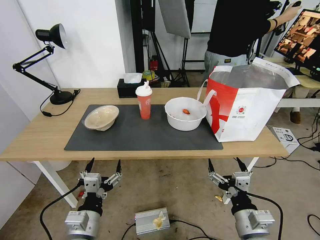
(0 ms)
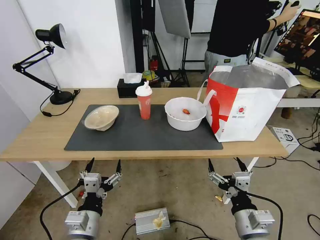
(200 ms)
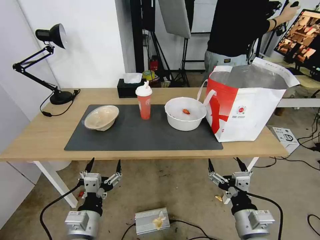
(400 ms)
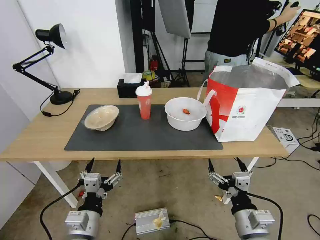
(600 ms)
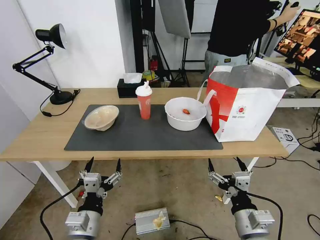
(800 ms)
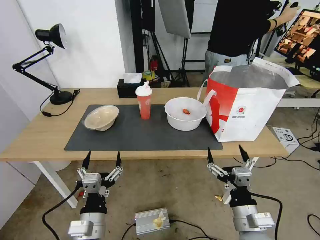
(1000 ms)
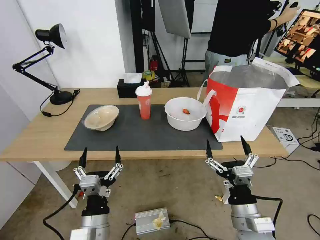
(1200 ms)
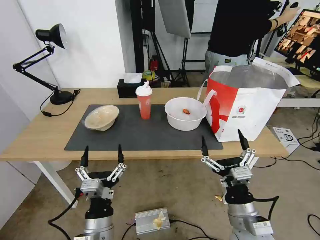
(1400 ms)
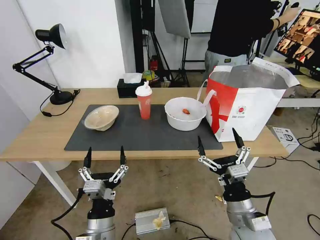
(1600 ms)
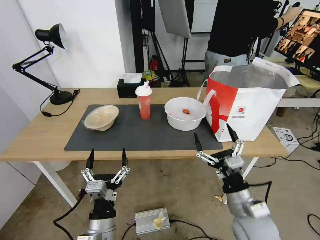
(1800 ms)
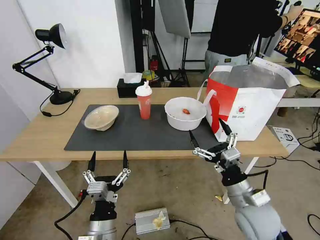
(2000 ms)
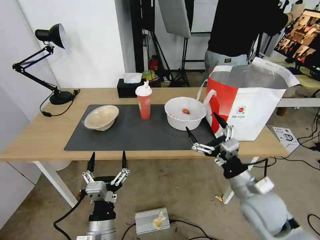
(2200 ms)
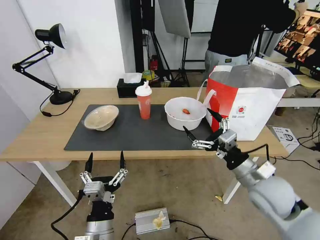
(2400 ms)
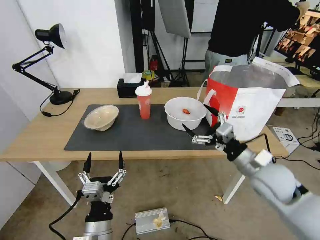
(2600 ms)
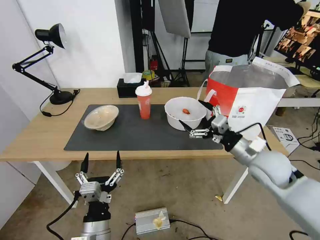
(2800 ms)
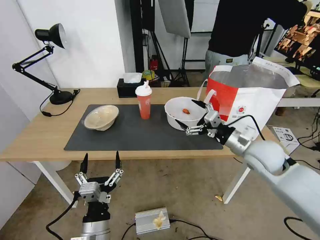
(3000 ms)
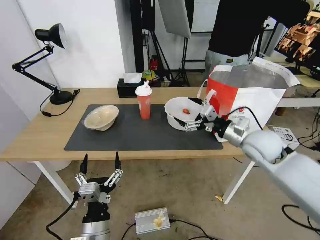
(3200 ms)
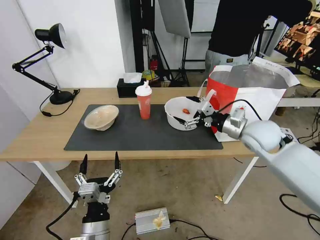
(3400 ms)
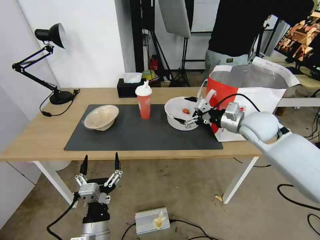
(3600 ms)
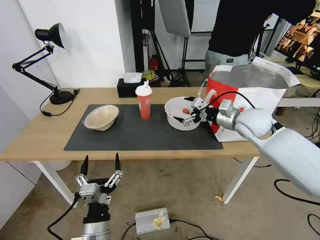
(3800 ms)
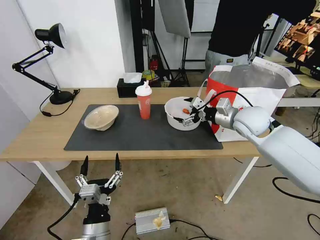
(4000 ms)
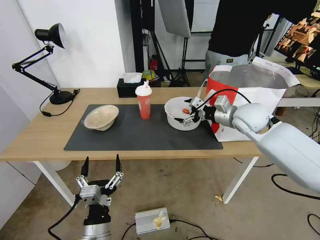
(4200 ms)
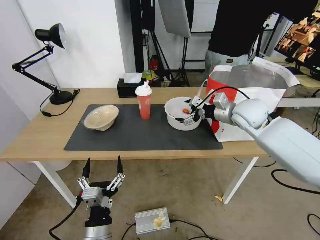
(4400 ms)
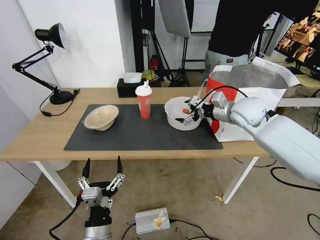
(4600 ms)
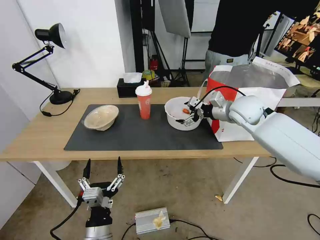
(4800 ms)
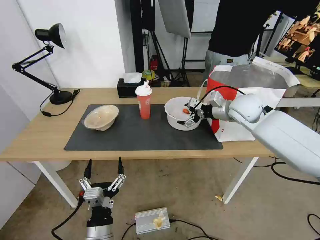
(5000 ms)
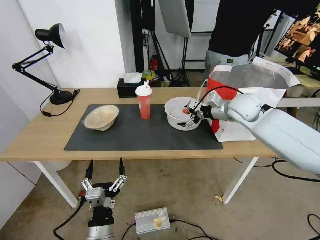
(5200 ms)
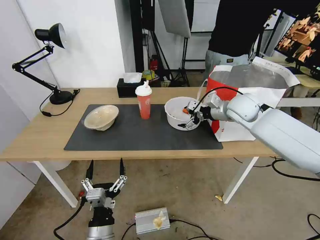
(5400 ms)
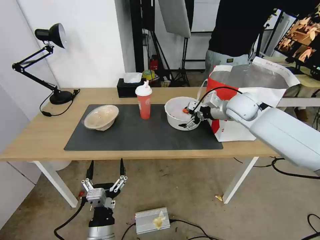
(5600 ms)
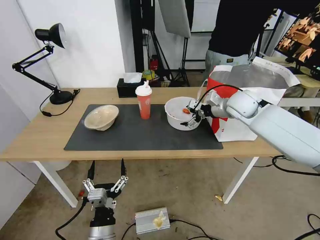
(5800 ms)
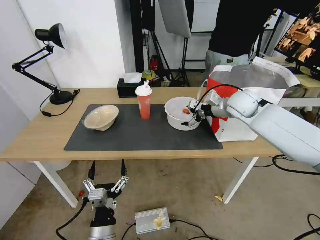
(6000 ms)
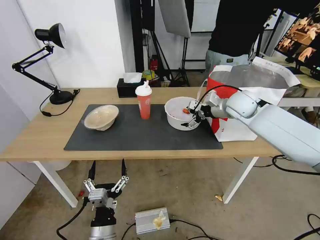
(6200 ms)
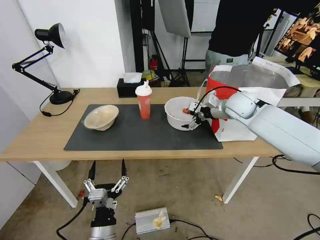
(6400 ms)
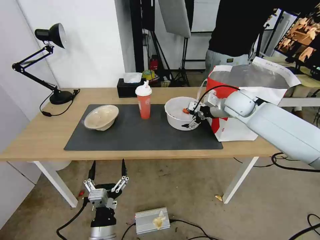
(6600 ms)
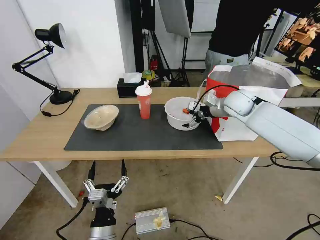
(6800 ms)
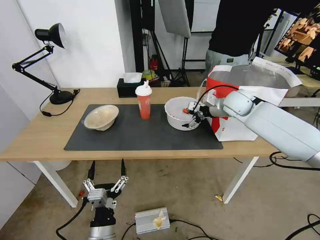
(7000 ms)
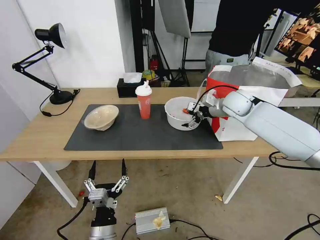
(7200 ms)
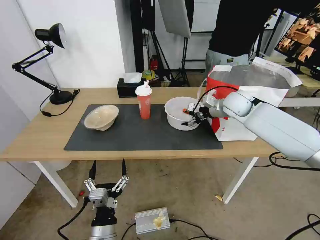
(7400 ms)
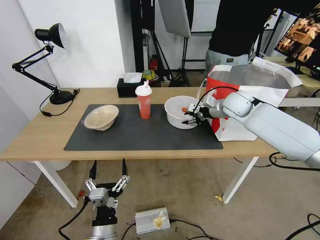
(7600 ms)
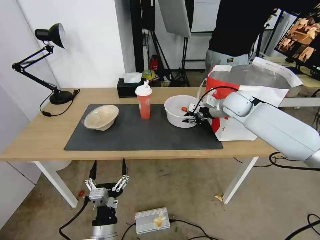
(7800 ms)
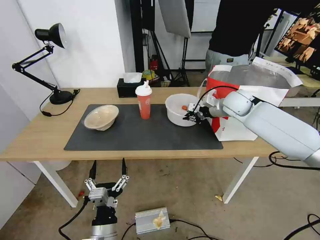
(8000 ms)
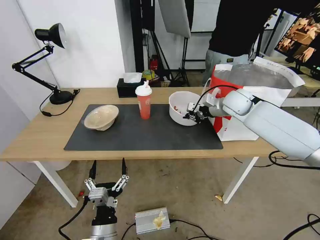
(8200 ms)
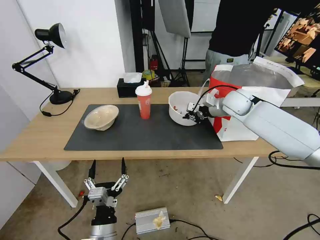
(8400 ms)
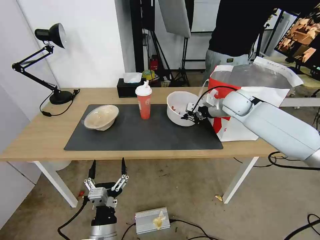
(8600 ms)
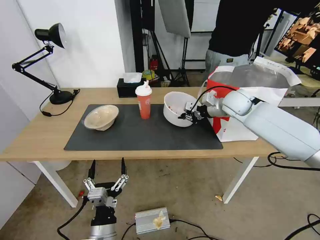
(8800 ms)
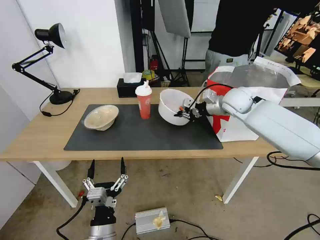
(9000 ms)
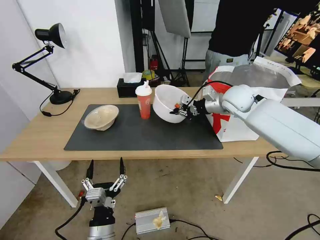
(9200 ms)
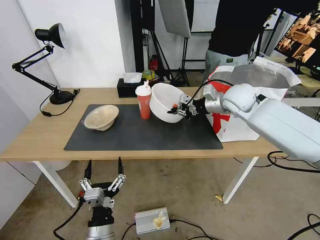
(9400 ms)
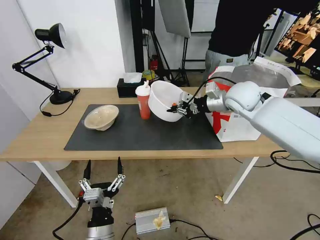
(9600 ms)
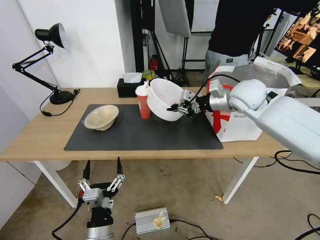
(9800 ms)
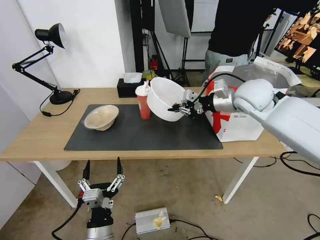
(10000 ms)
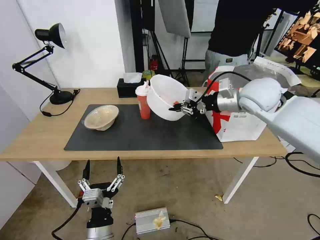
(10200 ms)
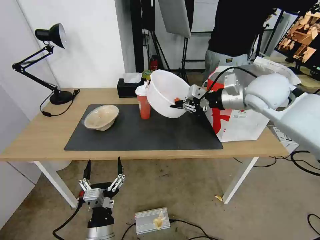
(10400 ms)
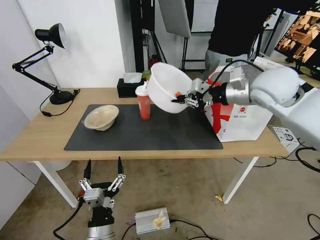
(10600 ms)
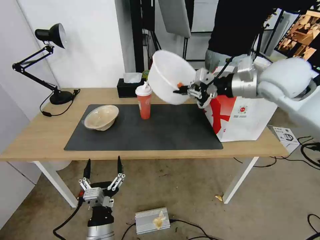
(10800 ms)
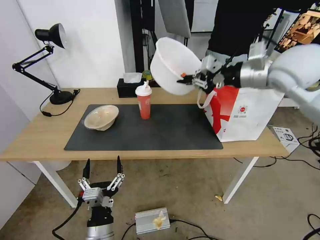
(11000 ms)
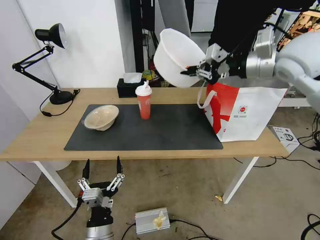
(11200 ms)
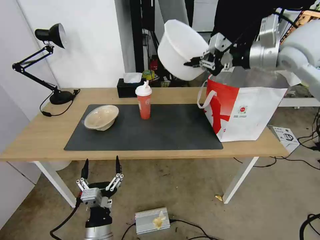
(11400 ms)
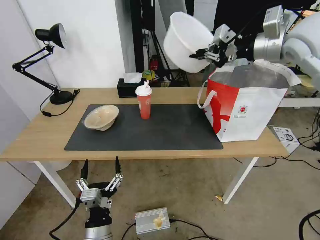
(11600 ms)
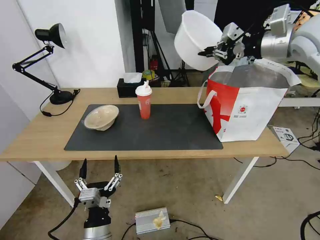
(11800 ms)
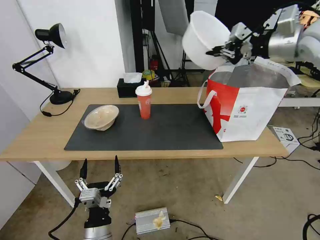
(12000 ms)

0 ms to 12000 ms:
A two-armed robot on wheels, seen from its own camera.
Task of the whole recording: Pick up the trash from the table and place it into the takeout bag.
1600 ms to 3000 ms: The right gripper moves forward, upward and to the right, approximately 20 cm.
3000 ms to 4400 ms: The right gripper goes about 15 cm forward and upward.
4400 ms to 6000 ms: The right gripper shifts roughly 5 cm forward.
6000 ms to 7600 ms: The right gripper closes up.
7600 ms to 9000 ms: The right gripper closes.
9000 ms to 10400 ms: The right gripper moves upward and backward, about 15 cm.
10400 ms to 12000 ms: The right gripper travels upward and to the right by some 15 cm.

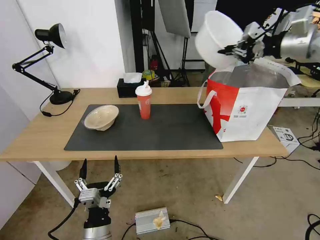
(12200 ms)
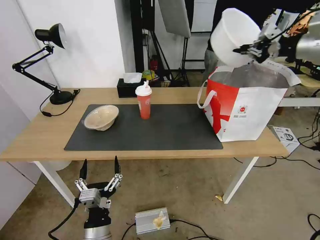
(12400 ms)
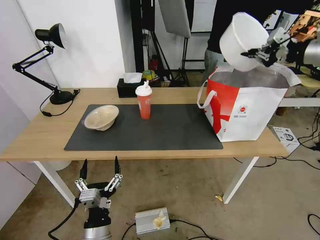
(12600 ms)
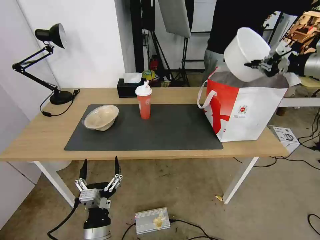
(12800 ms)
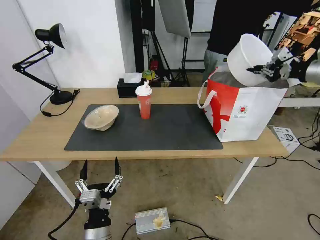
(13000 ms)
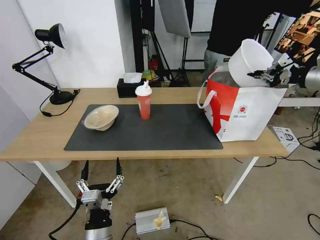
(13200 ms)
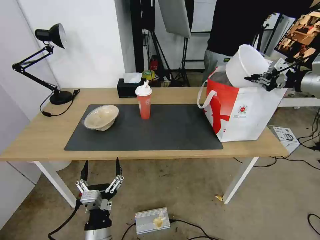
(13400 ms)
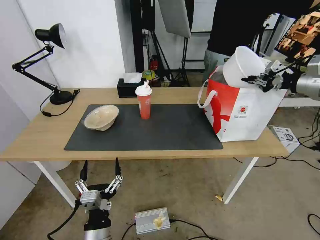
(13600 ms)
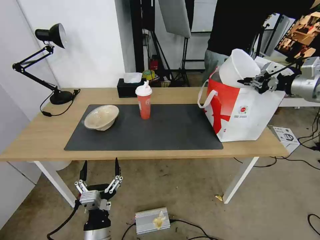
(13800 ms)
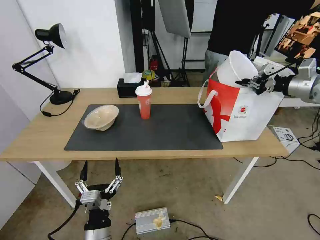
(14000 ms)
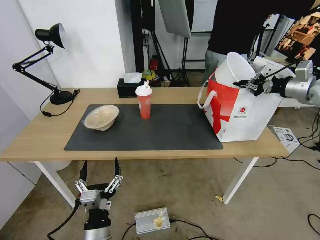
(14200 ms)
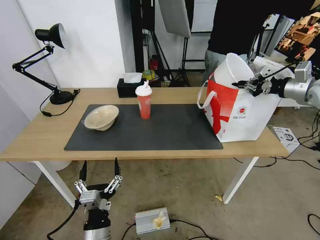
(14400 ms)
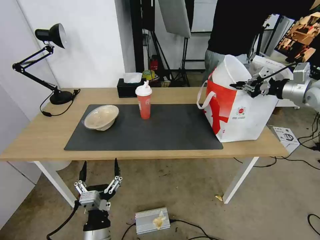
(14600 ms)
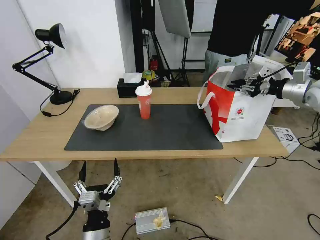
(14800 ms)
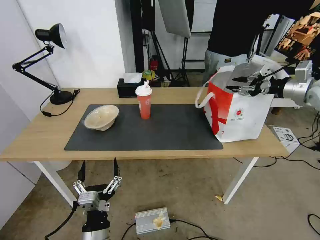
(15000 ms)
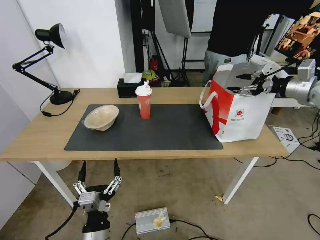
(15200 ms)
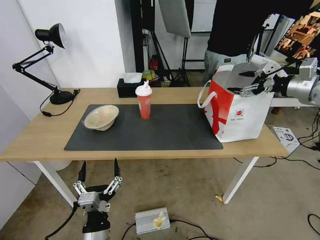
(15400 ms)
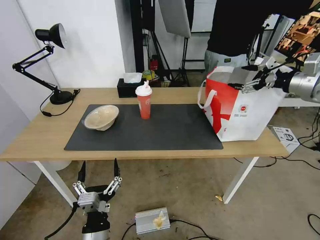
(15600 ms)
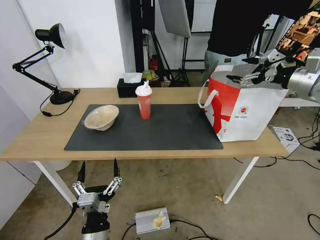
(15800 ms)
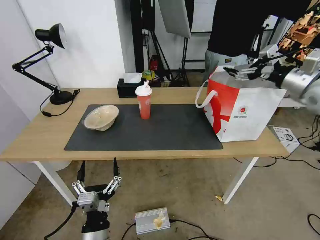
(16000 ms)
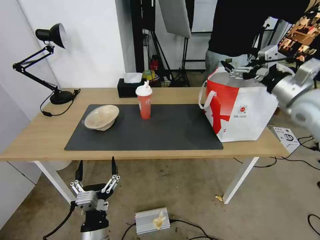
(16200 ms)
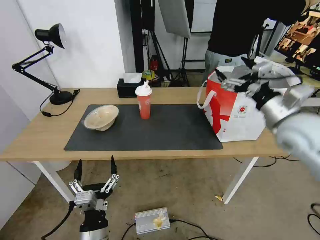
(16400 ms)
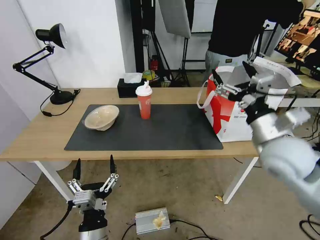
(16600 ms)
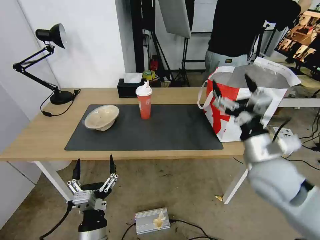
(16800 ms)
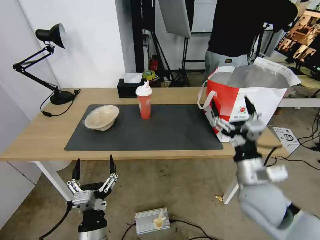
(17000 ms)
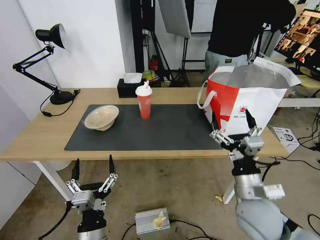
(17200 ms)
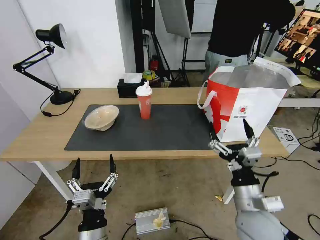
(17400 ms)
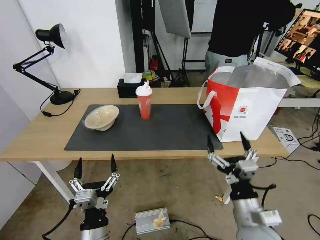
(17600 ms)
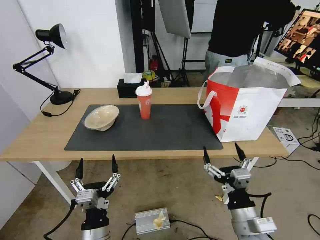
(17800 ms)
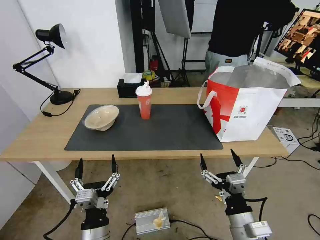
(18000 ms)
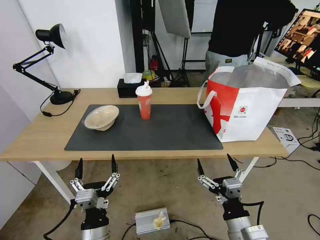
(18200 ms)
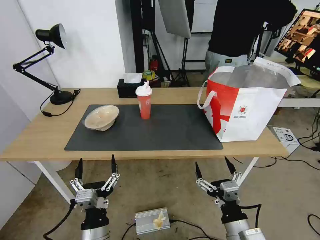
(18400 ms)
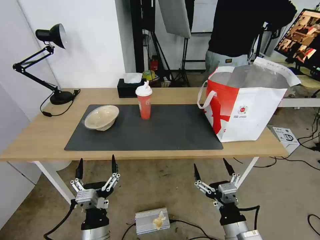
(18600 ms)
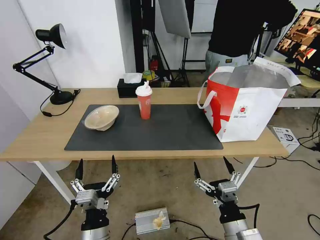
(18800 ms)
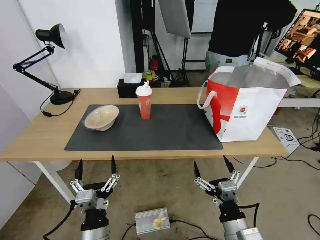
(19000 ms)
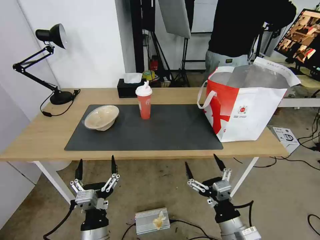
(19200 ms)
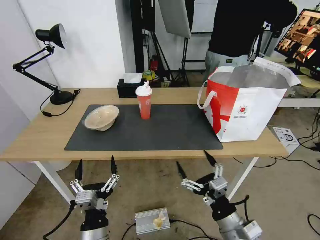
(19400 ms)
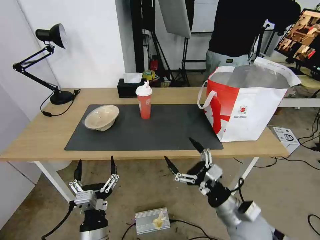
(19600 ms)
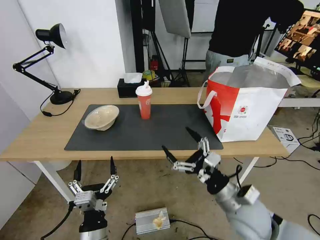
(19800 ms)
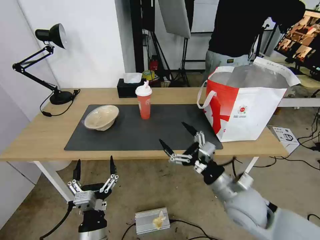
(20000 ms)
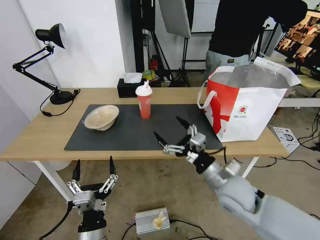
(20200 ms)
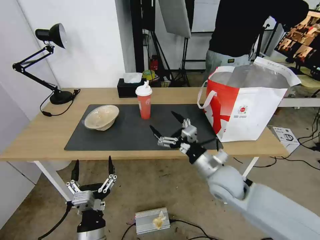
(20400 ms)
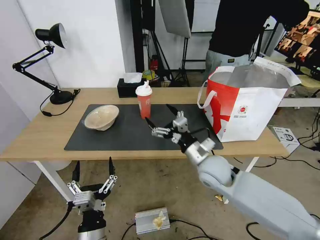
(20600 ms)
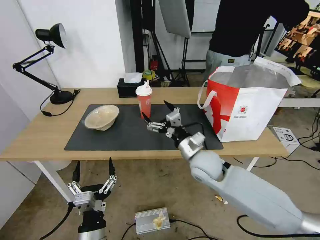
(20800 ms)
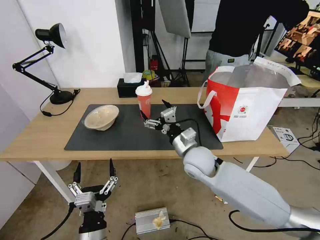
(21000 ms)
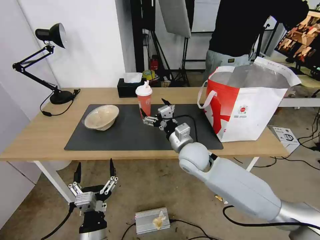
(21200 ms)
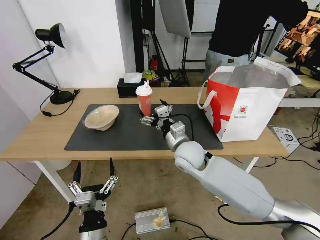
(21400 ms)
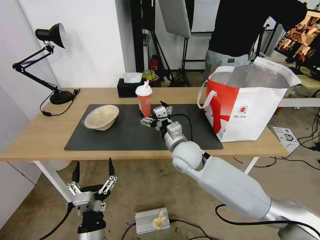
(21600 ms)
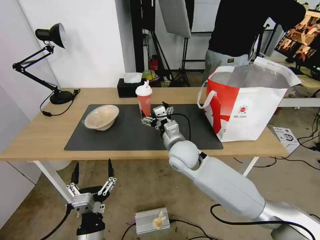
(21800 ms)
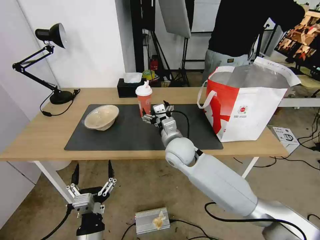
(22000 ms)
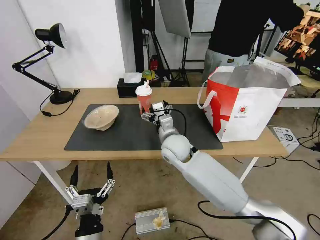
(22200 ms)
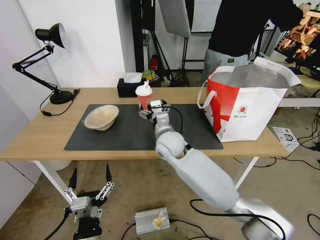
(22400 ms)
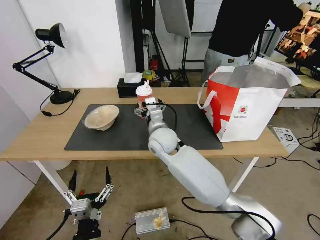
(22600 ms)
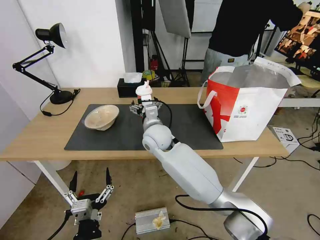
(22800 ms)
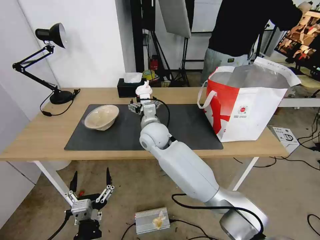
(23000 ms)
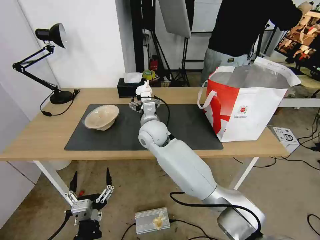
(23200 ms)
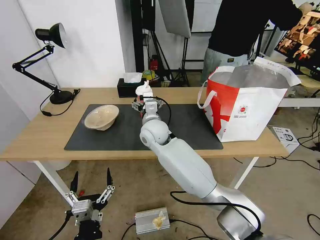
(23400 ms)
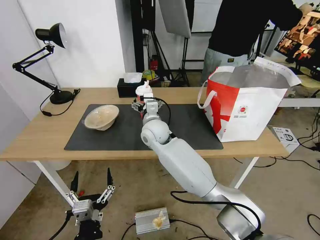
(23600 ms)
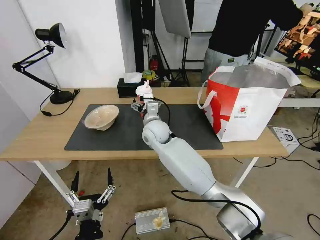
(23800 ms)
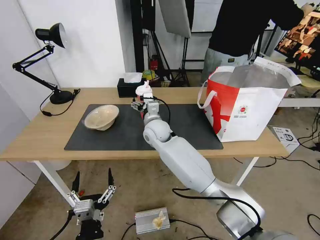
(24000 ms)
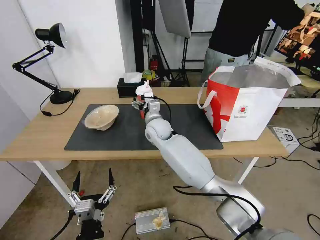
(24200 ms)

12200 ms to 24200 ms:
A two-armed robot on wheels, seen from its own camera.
Task of the whole recording: Pick up the trash from the table and place it into the takeout bag.
12200 ms to 13800 ms: The right gripper heads downward and to the right, covering about 15 cm.
13800 ms to 15200 ms: The right gripper opens its fingers.
15200 ms to 16600 ms: The right gripper is displaced to the left, backward and downward by about 30 cm.
16600 ms to 18200 ms: The right gripper moves downward and backward, approximately 25 cm.
18200 ms to 19800 ms: The right gripper shifts approximately 10 cm forward.
19800 ms to 21200 ms: The right gripper goes roughly 20 cm forward and to the left.
21200 ms to 22600 ms: The right gripper travels to the left and forward by some 10 cm.
22600 ms to 24200 ms: The right gripper moves forward, some 5 cm.
